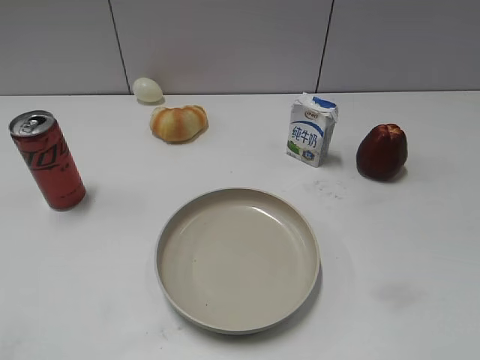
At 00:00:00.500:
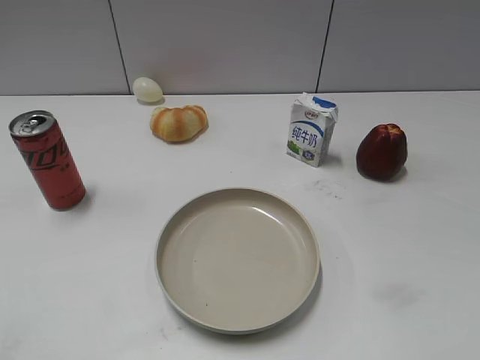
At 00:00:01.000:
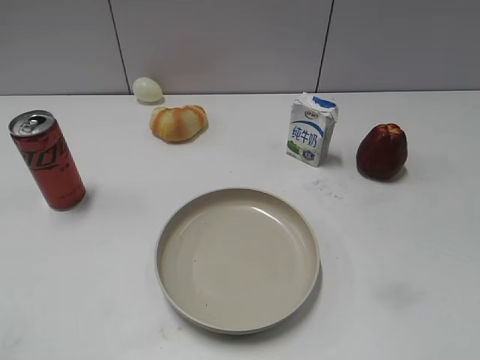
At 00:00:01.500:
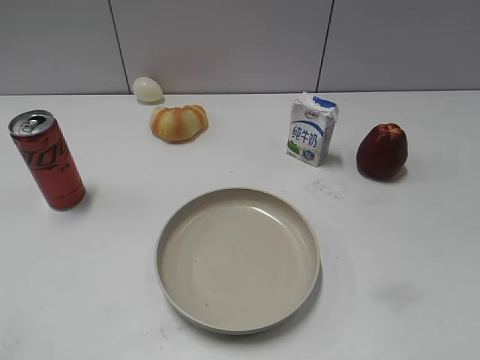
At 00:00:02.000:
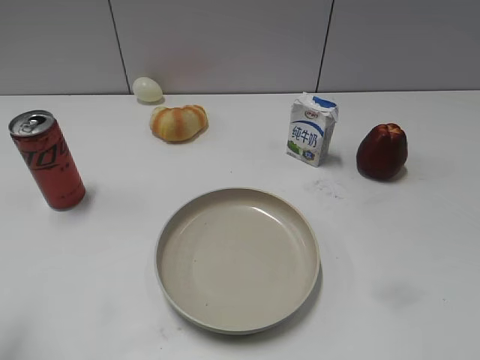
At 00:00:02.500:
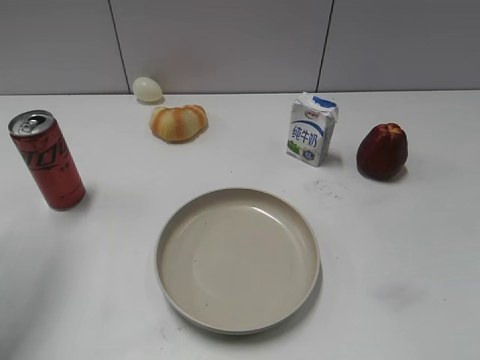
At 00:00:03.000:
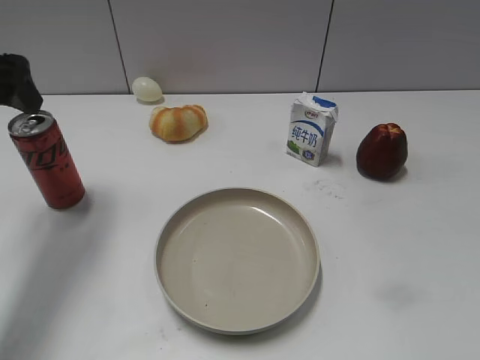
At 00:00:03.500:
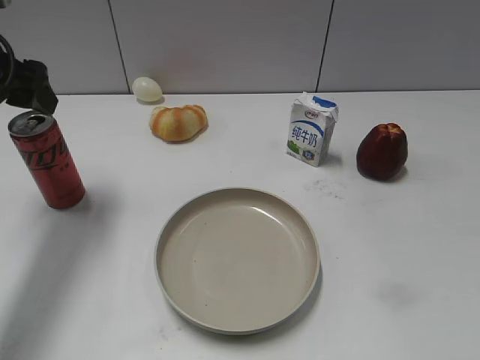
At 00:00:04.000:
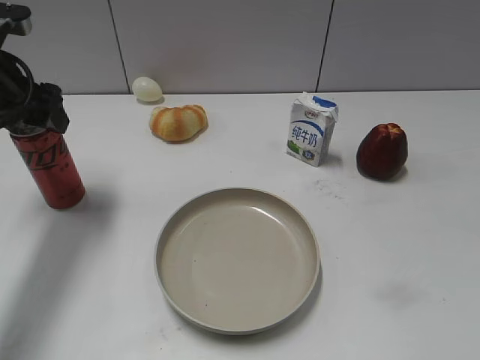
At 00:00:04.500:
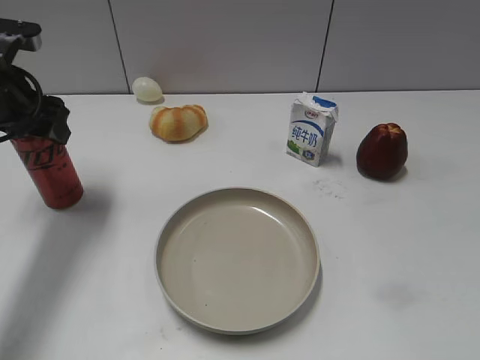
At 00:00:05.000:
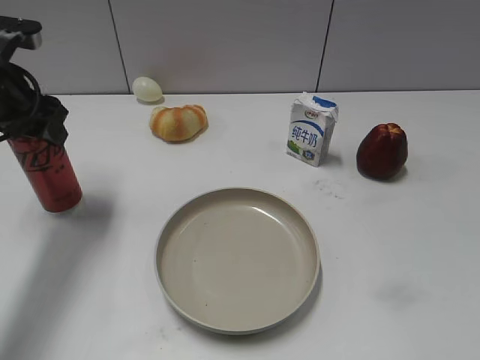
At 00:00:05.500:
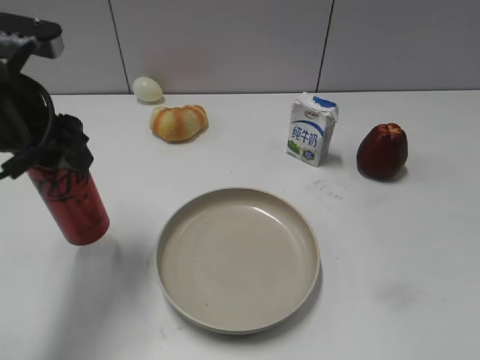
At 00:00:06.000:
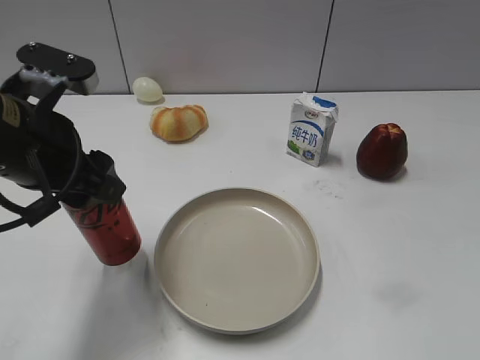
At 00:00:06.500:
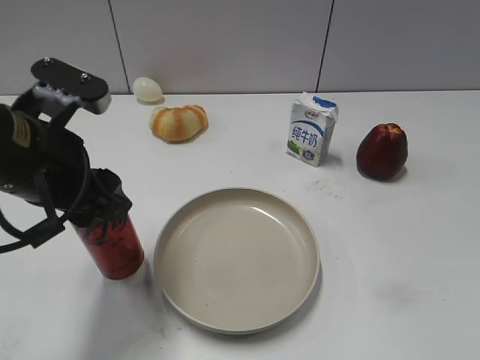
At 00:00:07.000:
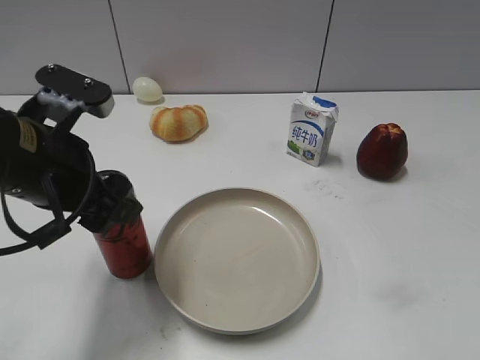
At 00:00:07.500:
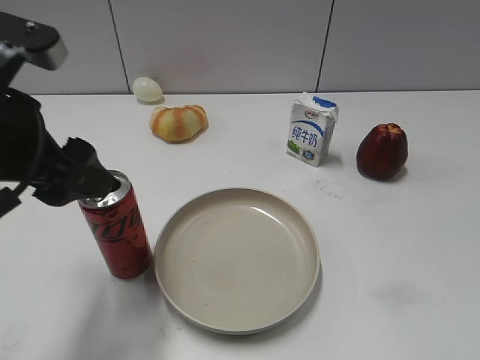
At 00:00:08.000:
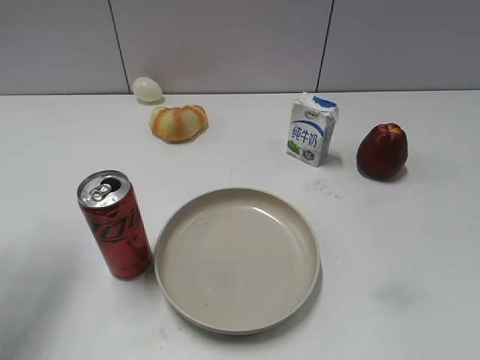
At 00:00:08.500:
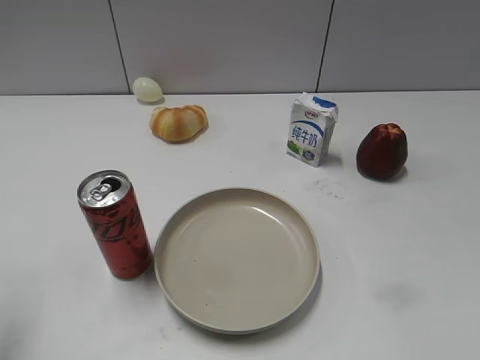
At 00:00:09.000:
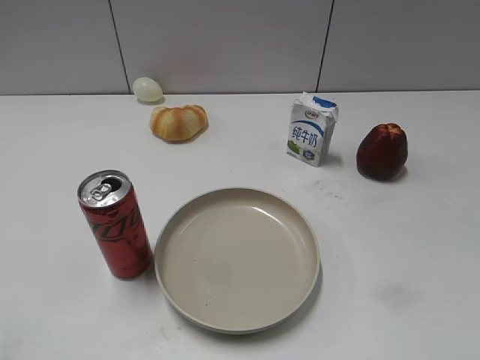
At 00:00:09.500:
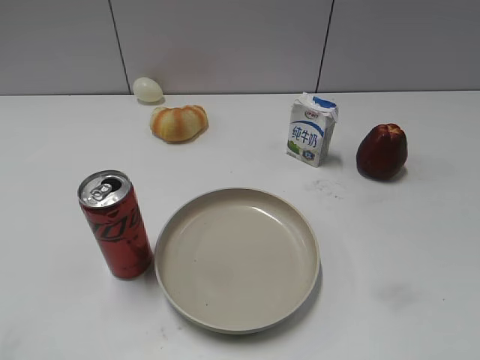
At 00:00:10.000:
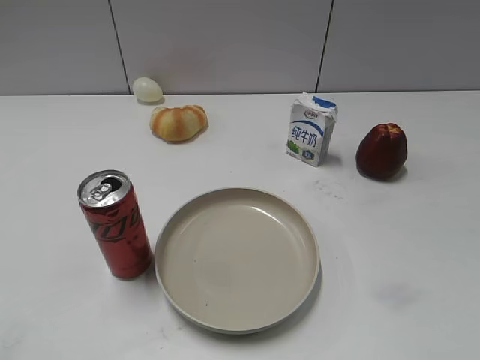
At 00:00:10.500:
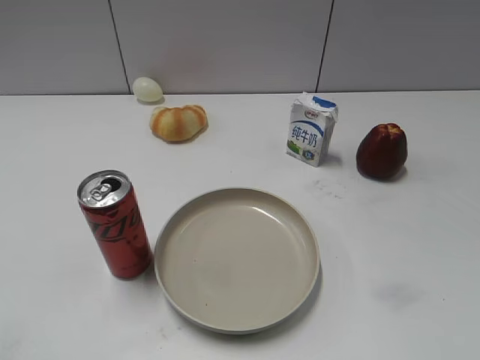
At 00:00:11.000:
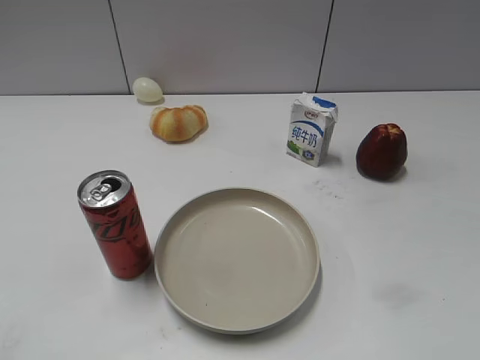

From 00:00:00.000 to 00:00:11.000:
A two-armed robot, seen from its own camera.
Step, from 00:00:01.500 to 00:00:04.500: Grasp the cola with left gripper.
Step, from 00:00:05.000 to 00:00:07.000: Place the cola on the table with left gripper.
From 00:00:02.000 to 00:00:03.500: The left gripper travels forward by some 20 cm, and opens its fingers.
From 00:00:03.500 to 00:00:05.500: The left gripper shifts roughly 10 cm backward and to the right, and closes its fingers.
From 00:00:05.500 to 00:00:07.500: The left gripper goes approximately 5 cm backward, and opens up.
From 00:00:07.500 to 00:00:09.000: The left gripper heads backward and to the left, covering about 20 cm, and closes its fingers.

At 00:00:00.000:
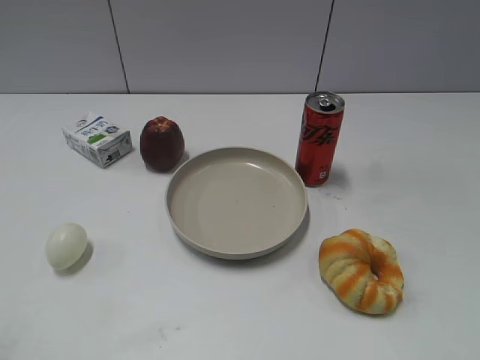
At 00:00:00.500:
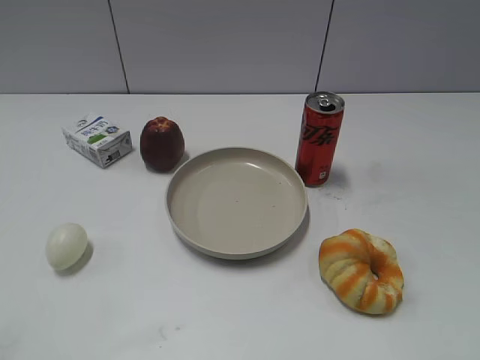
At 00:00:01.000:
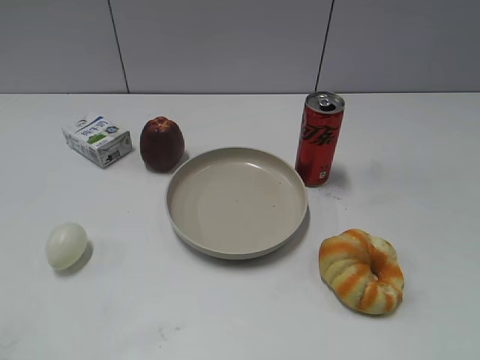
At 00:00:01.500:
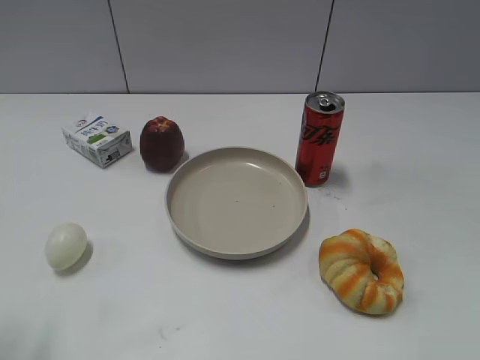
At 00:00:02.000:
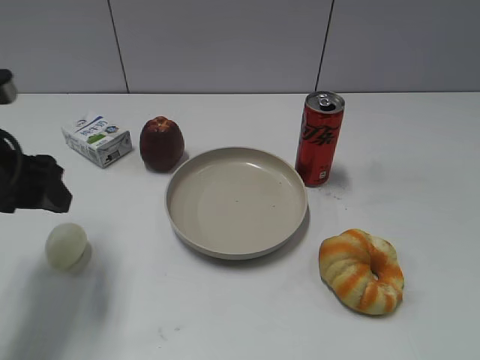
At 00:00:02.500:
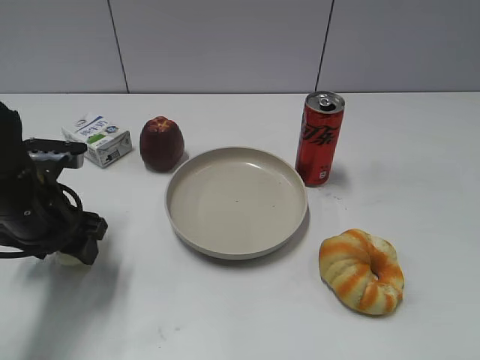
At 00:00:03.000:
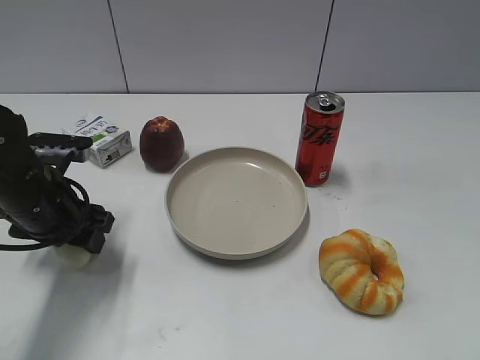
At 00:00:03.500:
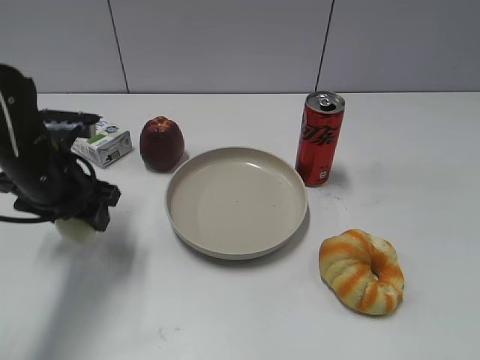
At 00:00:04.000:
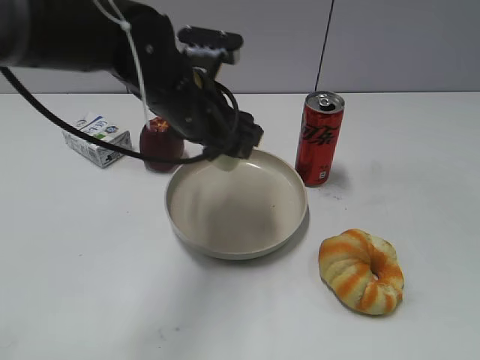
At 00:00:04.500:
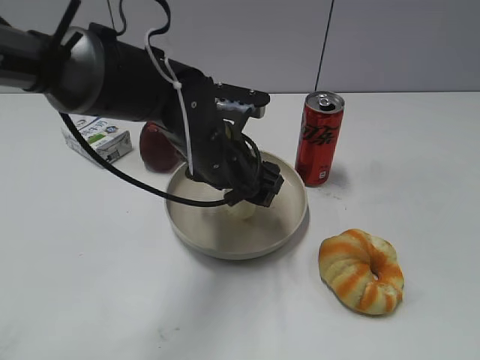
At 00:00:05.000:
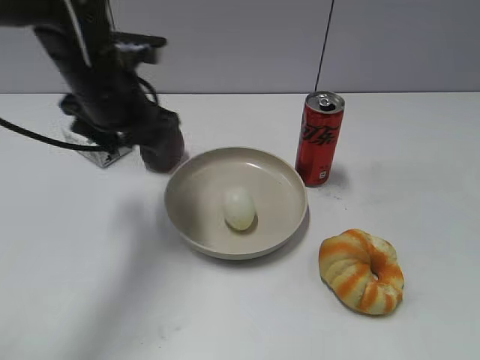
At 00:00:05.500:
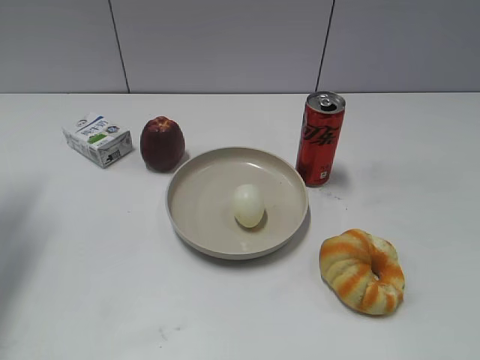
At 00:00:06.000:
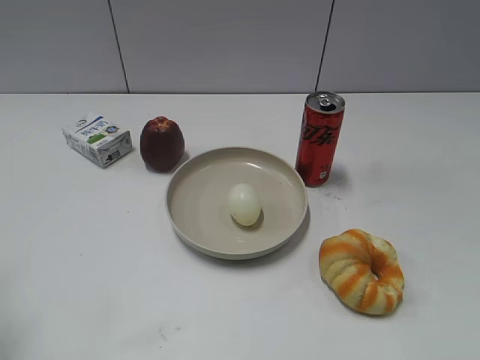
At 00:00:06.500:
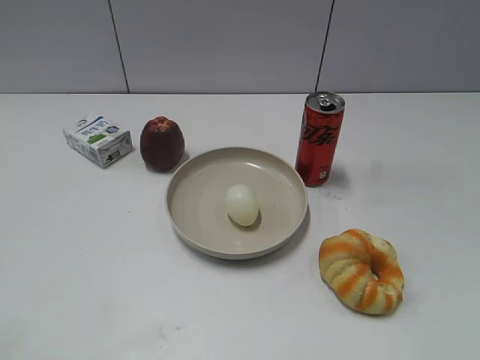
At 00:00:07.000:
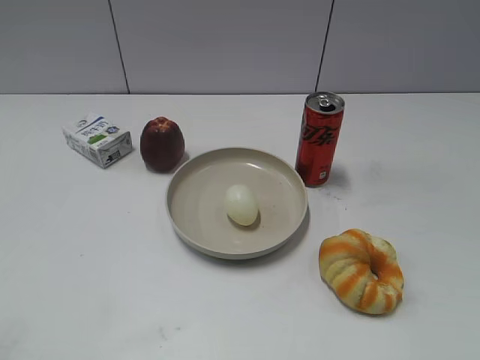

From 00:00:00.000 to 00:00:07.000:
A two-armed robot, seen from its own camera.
Step, from 00:00:01.500 to 00:00:03.000: Grasp the egg with left gripper.
Step, from 00:00:03.500 to 00:00:04.500: Place the egg on the plate with left gripper.
From 00:00:02.000 to 00:00:03.500: The left gripper goes roughly 10 cm downward and forward, and closes.
From 00:00:03.500 to 00:00:05.000: The left gripper heads to the right and upward, covering roughly 15 cm, and opens up.
From 00:00:05.000 to 00:00:07.000: The left gripper is displaced backward and to the left by approximately 40 cm, and closes.
